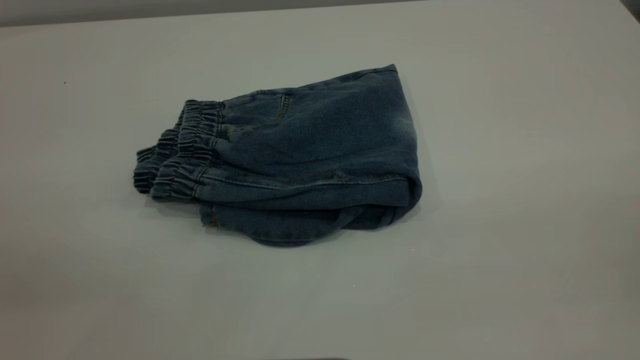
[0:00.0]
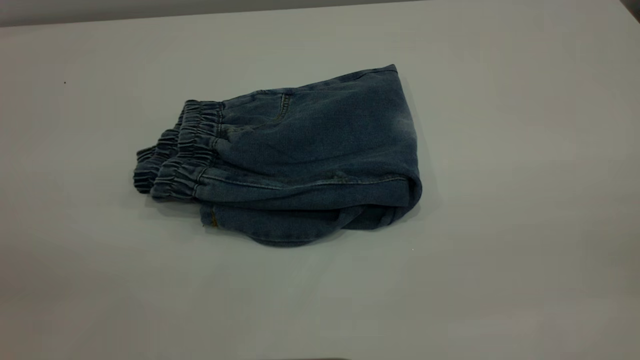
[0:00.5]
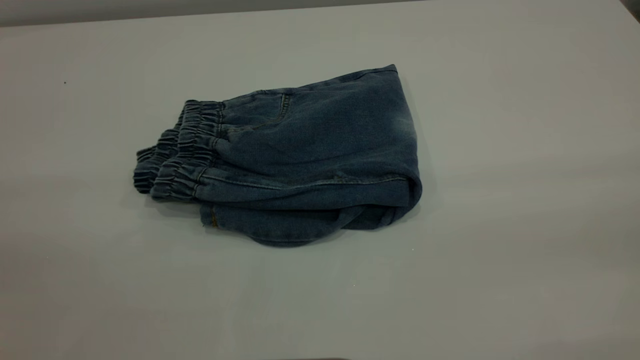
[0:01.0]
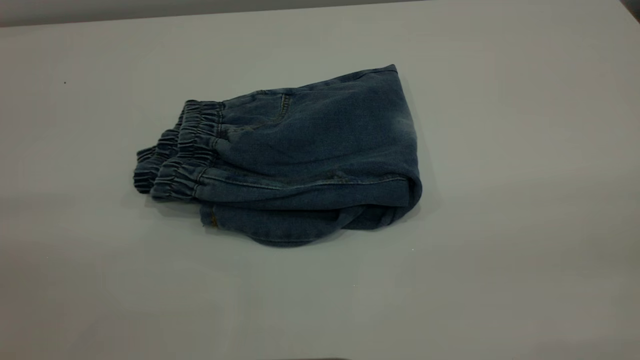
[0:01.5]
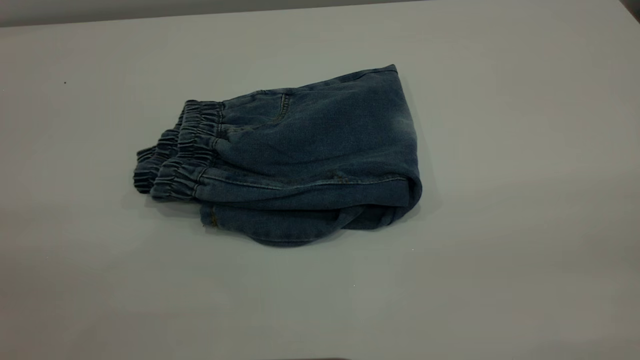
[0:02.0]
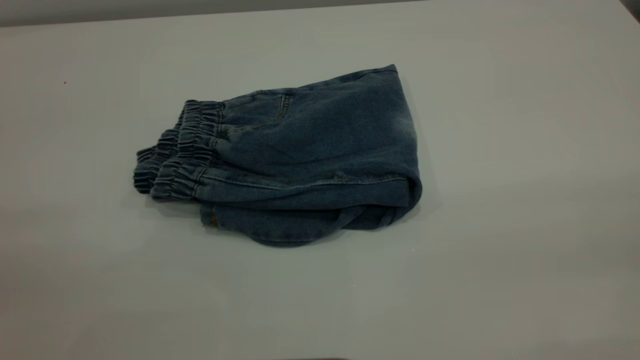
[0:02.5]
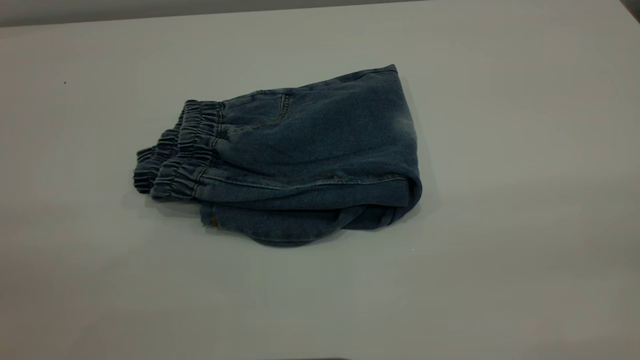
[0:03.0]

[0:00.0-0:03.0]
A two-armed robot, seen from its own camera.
0:01.5 to 0:03.0: Neither gripper changes place.

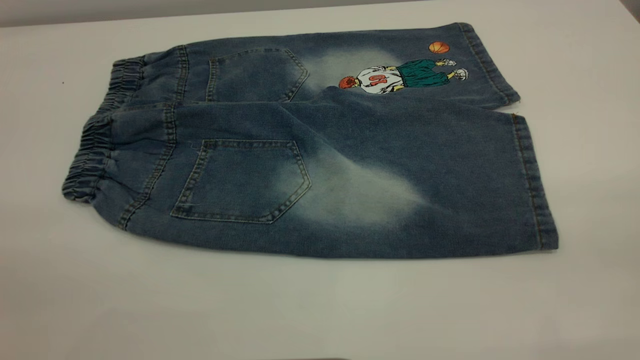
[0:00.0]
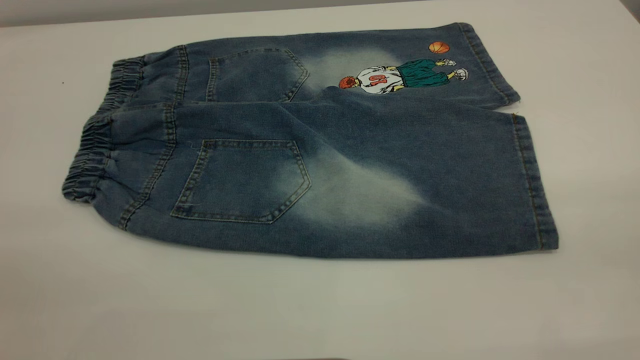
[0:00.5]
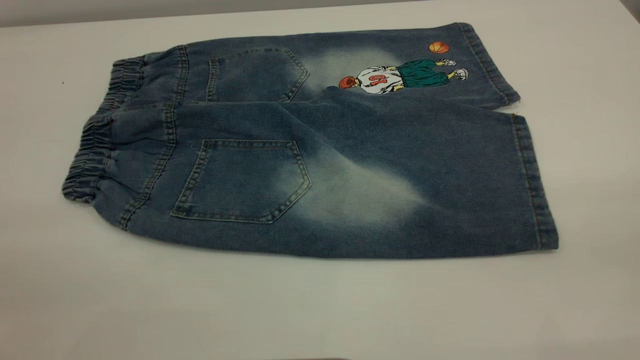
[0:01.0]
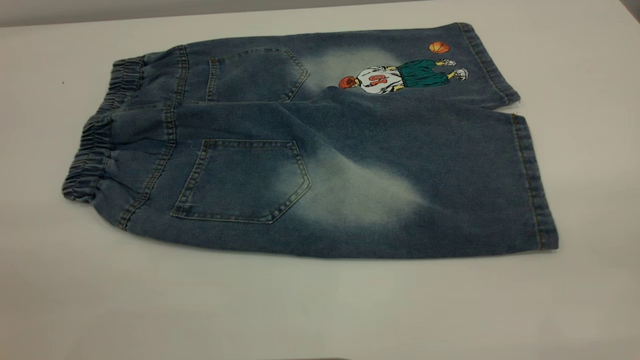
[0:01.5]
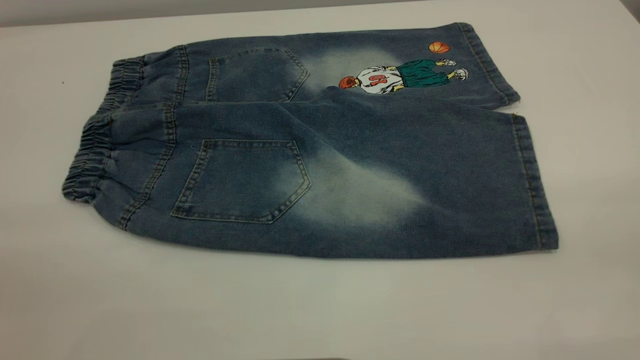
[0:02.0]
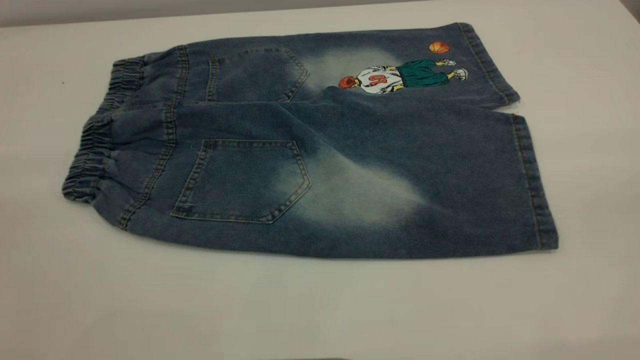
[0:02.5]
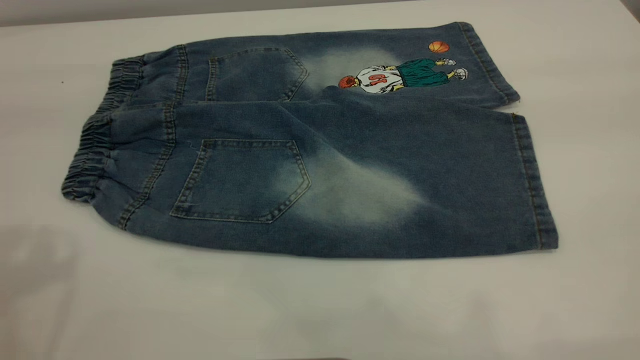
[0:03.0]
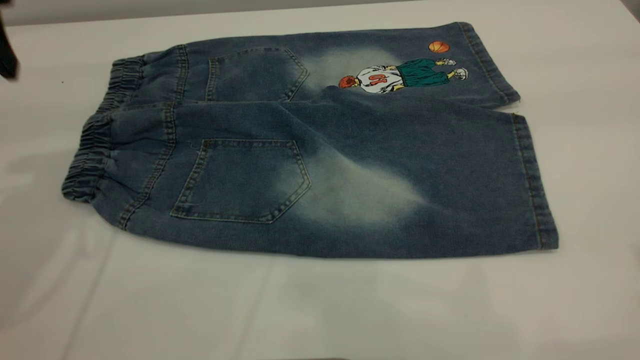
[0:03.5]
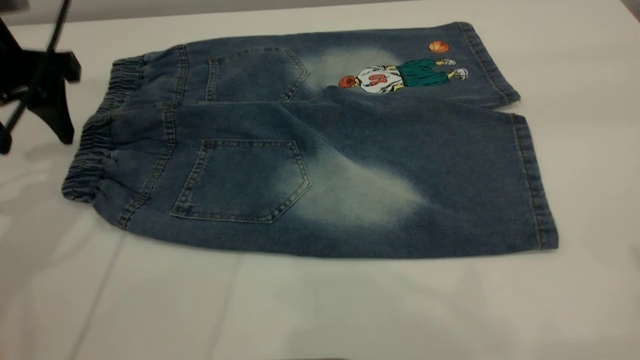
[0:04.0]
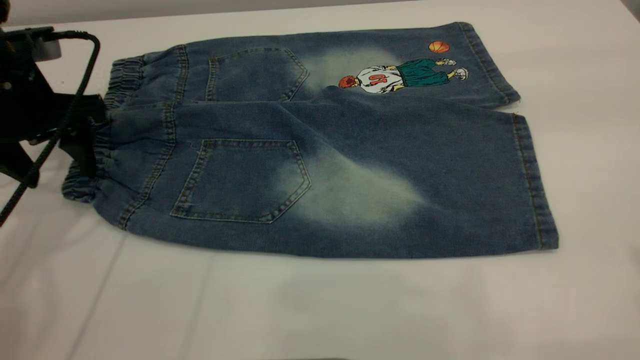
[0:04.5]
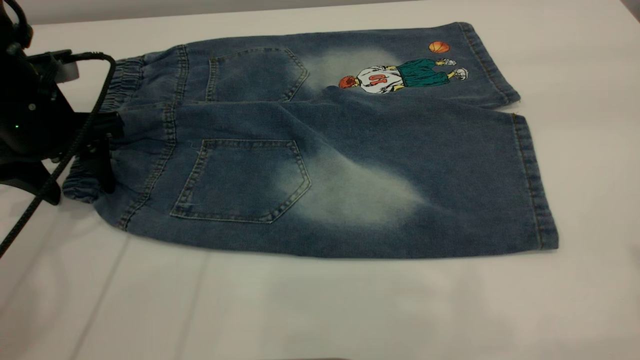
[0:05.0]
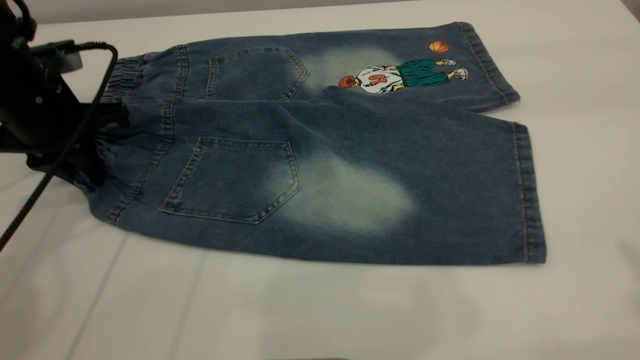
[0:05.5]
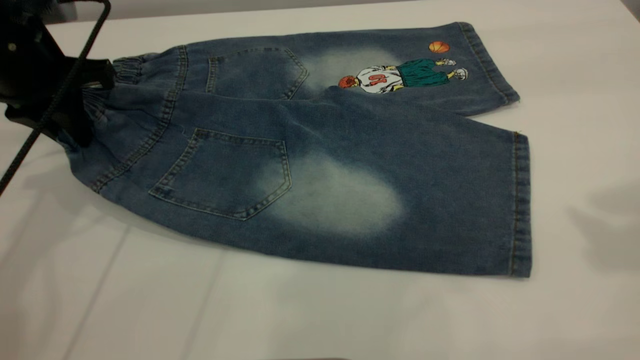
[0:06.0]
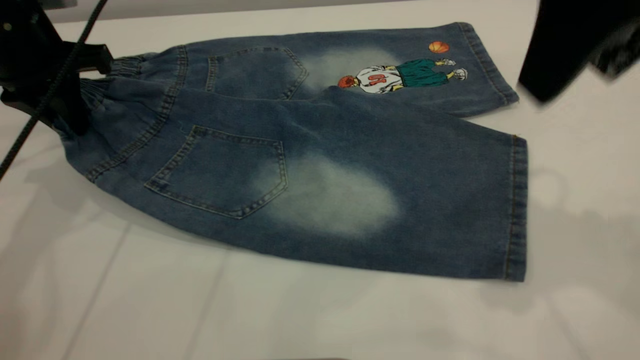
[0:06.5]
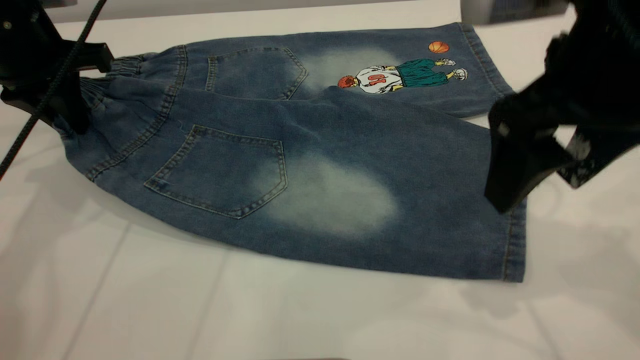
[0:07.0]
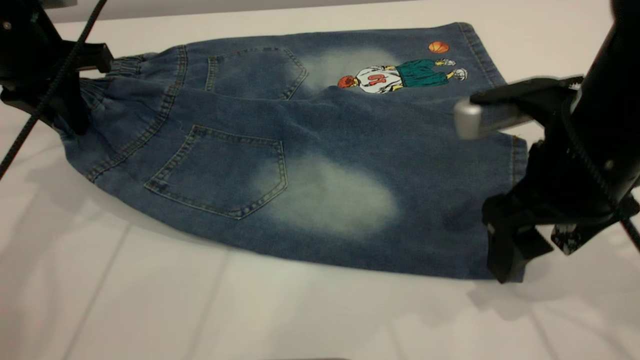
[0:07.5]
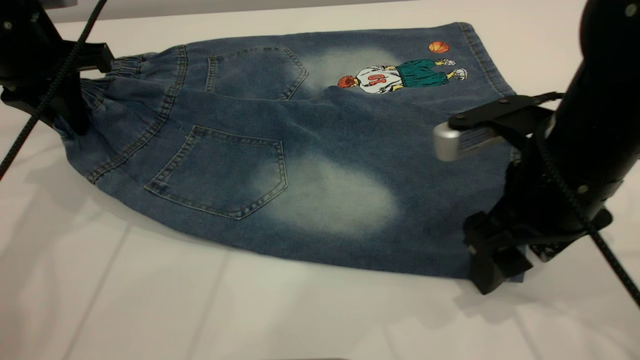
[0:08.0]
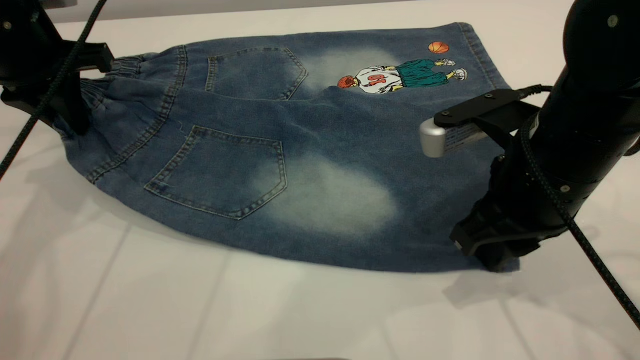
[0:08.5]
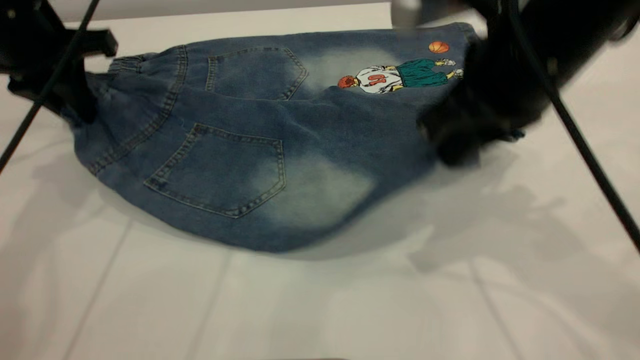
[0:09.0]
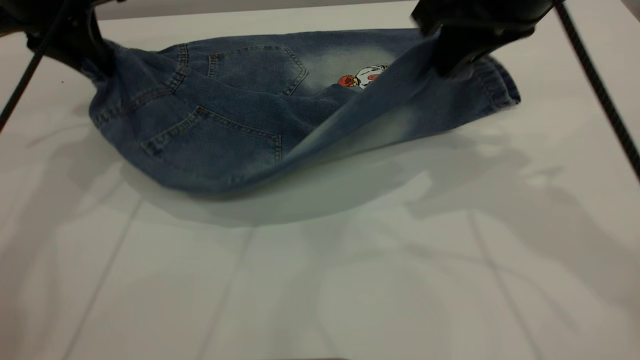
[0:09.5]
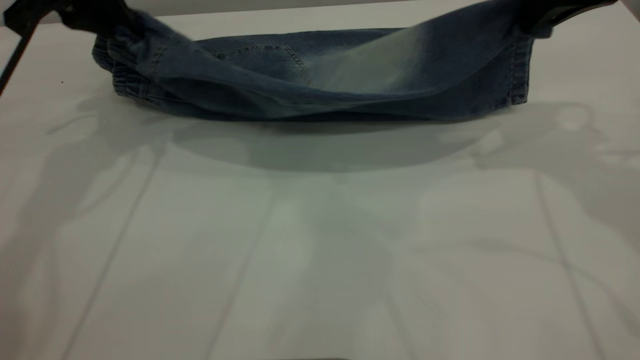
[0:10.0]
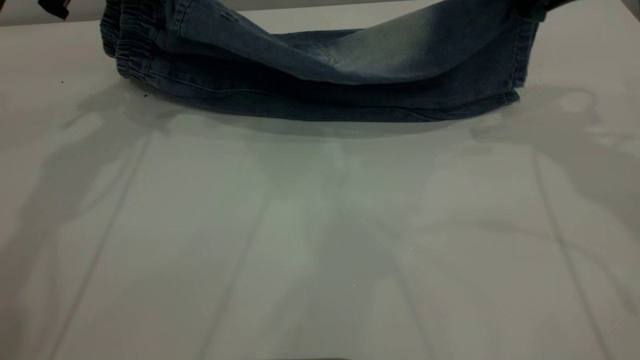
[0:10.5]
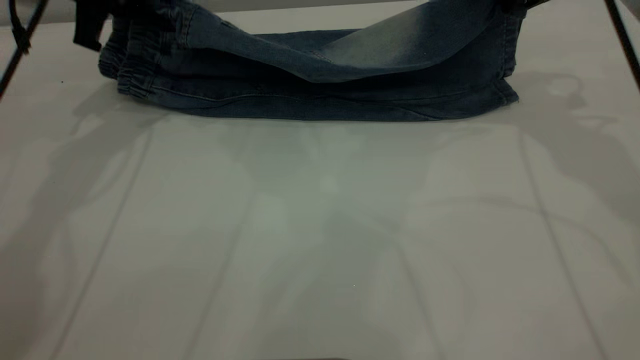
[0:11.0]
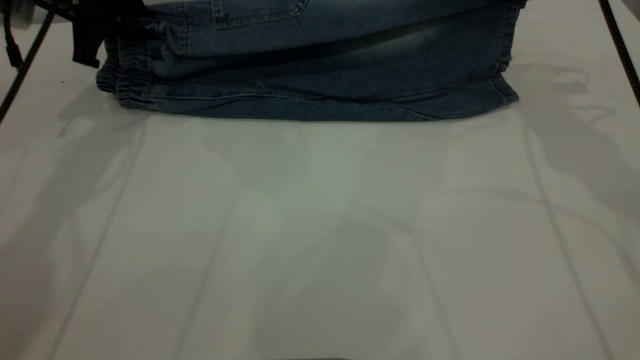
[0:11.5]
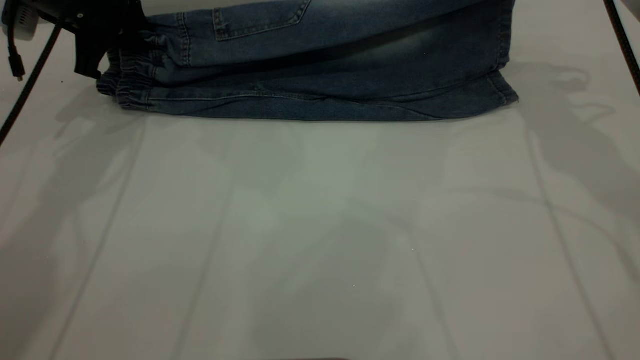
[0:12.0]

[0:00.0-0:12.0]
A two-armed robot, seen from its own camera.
0:00.0 to 0:02.0: Neither gripper changes place.
0:02.0 to 0:04.0: The left gripper is displaced forward and downward by some 35 cm.
0:04.0 to 0:06.0: The right gripper shifts approximately 5 cm forward, while the left gripper closes its fingers.
0:06.0 to 0:08.0: The right gripper goes about 30 cm downward and to the left.
0:08.0 to 0:10.0: The left gripper changes place by some 5 cm, while the right gripper travels upward, forward and to the right by approximately 20 cm, and closes its fingers.
0:10.0 to 0:12.0: The left gripper heads downward, covering approximately 5 cm, while the right gripper goes some 10 cm forward.

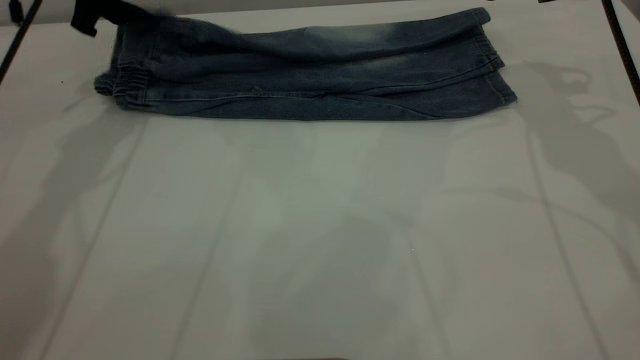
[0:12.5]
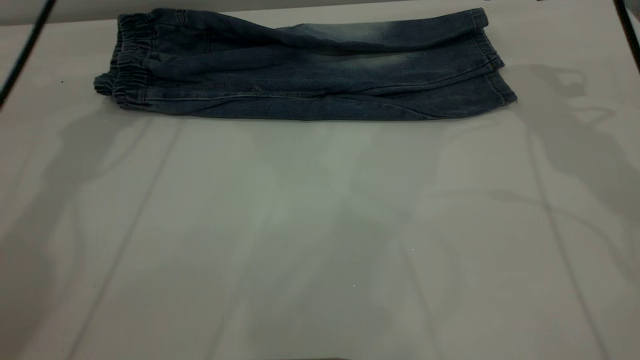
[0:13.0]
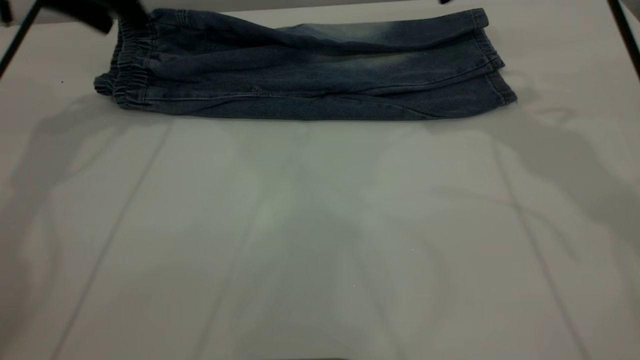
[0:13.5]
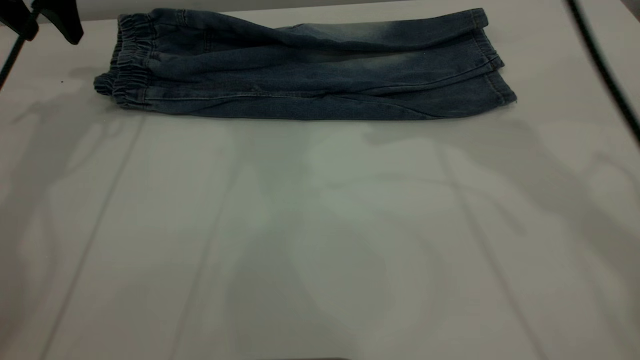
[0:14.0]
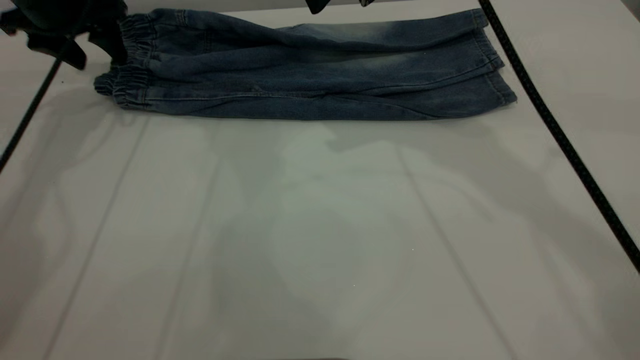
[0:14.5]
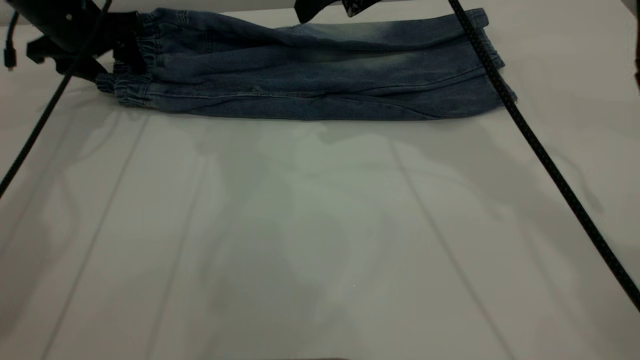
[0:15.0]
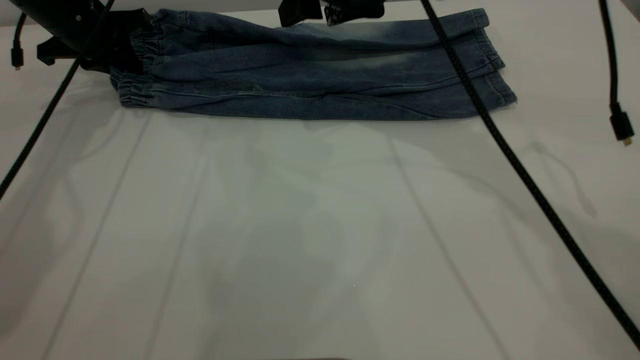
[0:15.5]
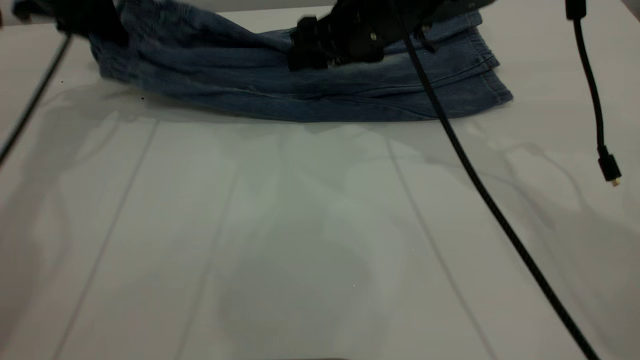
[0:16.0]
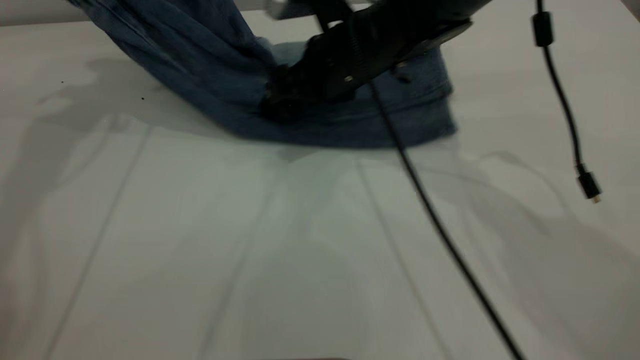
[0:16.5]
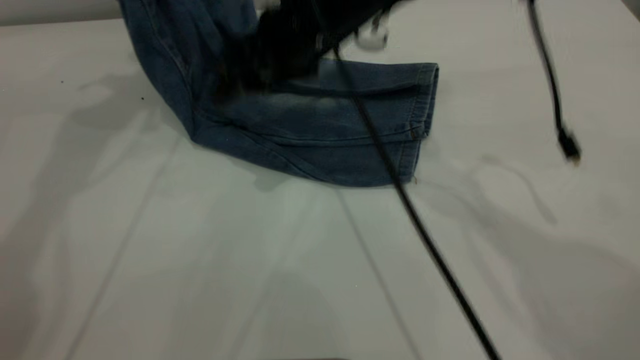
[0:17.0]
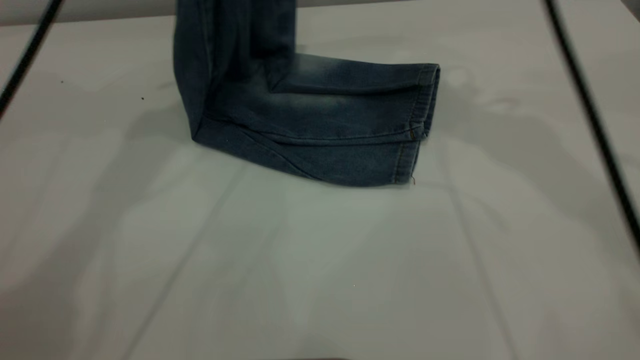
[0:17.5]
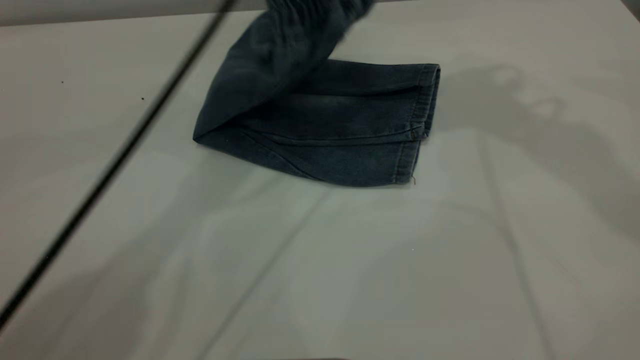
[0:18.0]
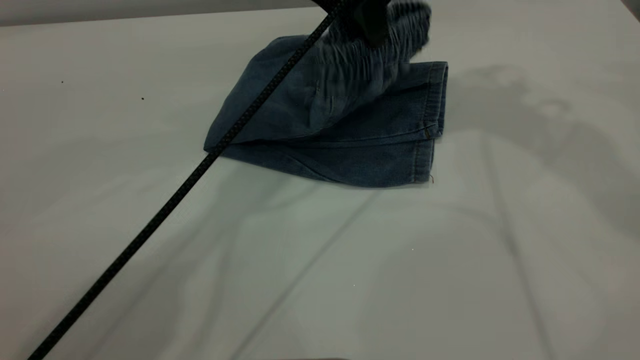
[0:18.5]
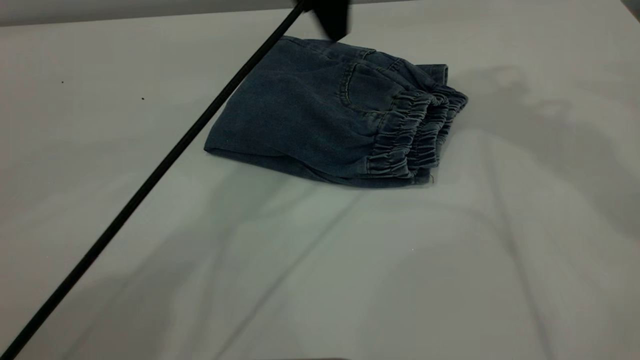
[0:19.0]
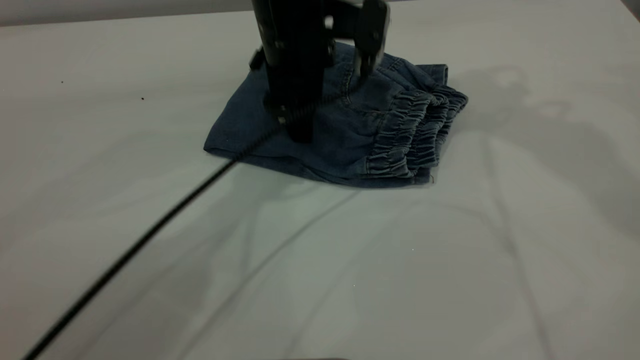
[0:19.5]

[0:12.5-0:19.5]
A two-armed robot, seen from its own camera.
Step, 0:13.5 to 0:18.5: Fold the pants from left to right.
0:12.5 to 0:14.5: The right gripper is displaced to the left by roughly 15 cm. Meanwhile the left gripper shifts by about 5 cm.
0:14.5 to 0:16.0: The left gripper closes up, while the right gripper is displaced downward by approximately 15 cm.
0:16.0 to 0:17.5: The right gripper is displaced upward by roughly 20 cm; the left gripper shifts about 20 cm to the right and upward.
0:17.5 to 0:19.5: The left gripper moves downward and to the right, approximately 25 cm, and opens its fingers. Meanwhile the right gripper ends up some 5 cm from where it was.
